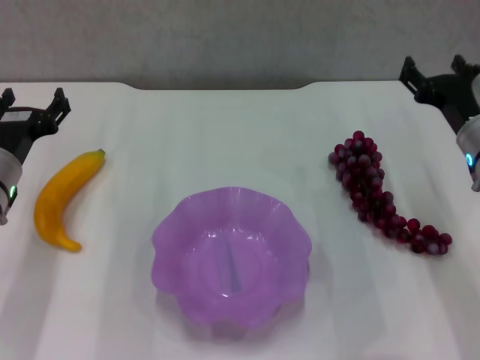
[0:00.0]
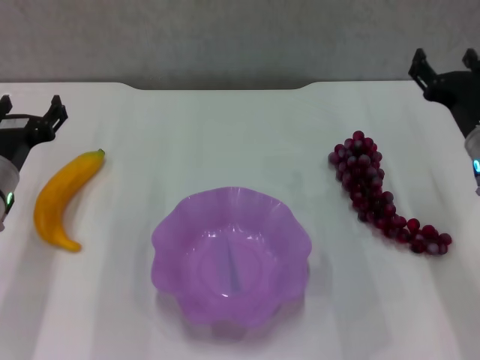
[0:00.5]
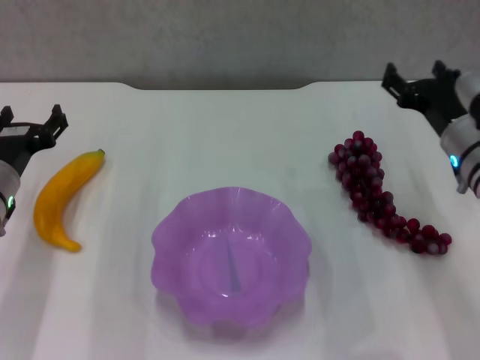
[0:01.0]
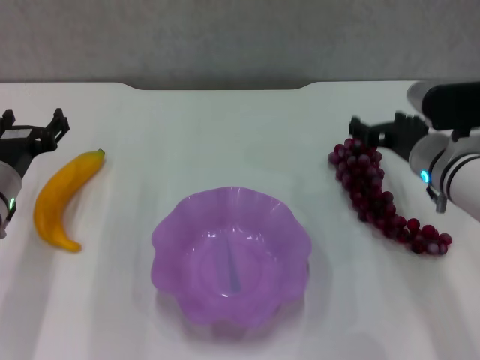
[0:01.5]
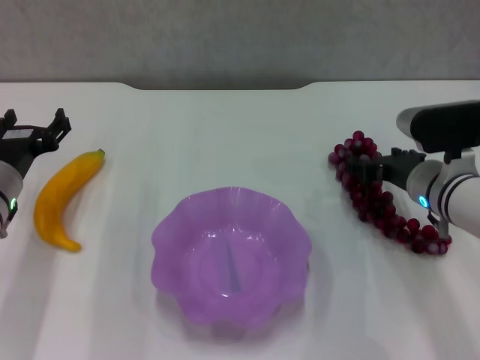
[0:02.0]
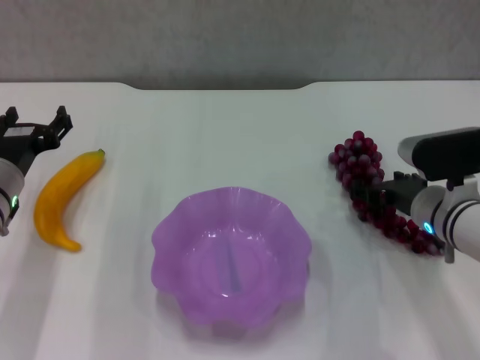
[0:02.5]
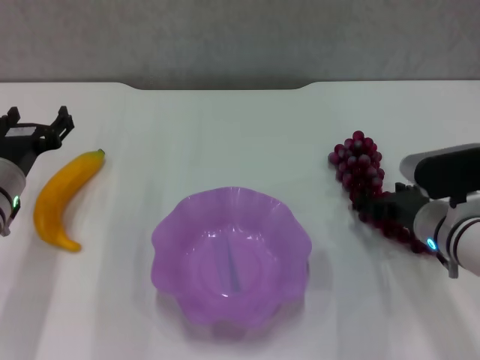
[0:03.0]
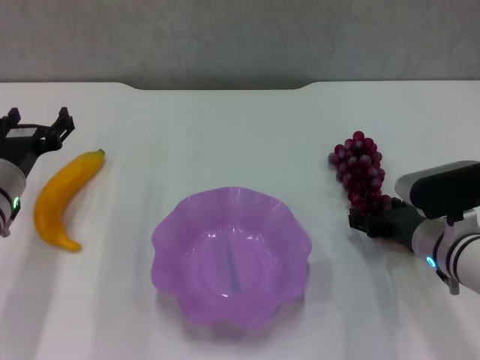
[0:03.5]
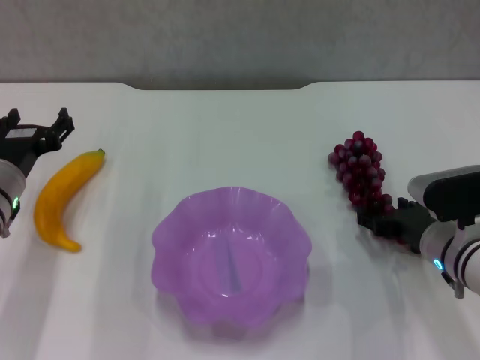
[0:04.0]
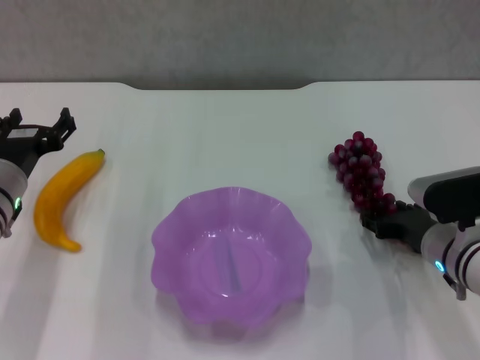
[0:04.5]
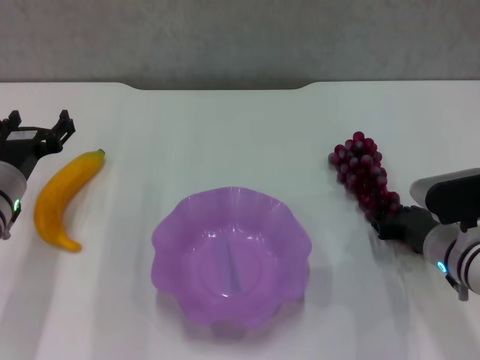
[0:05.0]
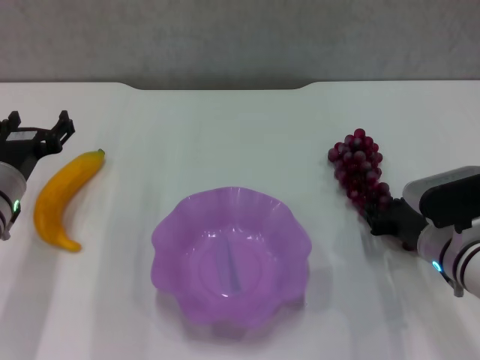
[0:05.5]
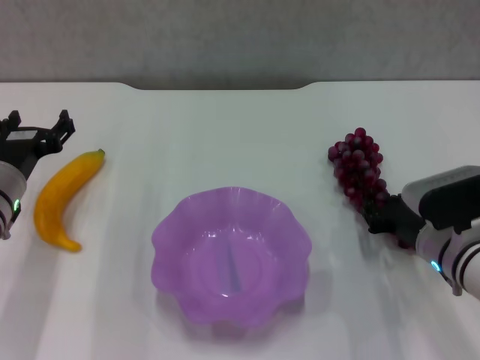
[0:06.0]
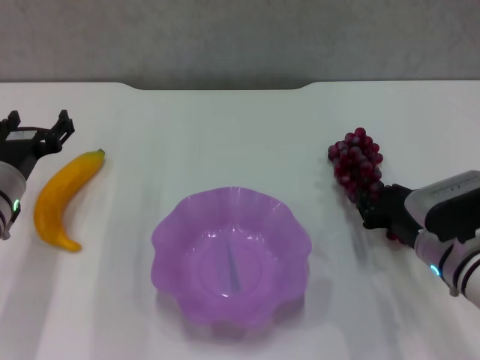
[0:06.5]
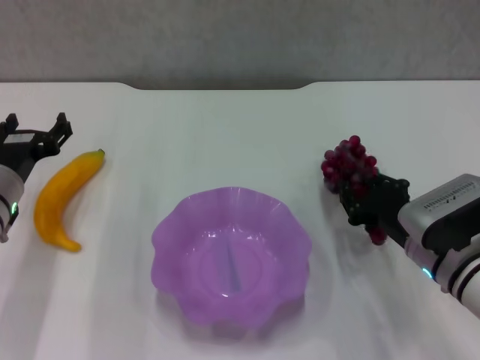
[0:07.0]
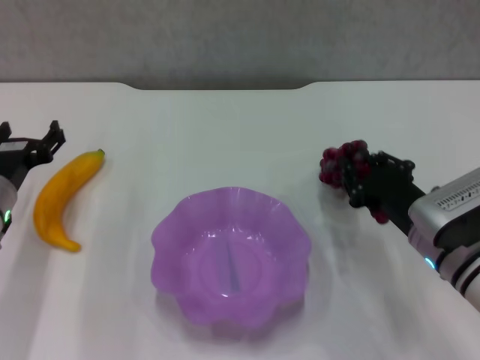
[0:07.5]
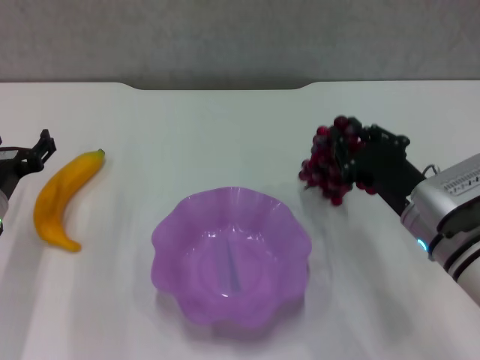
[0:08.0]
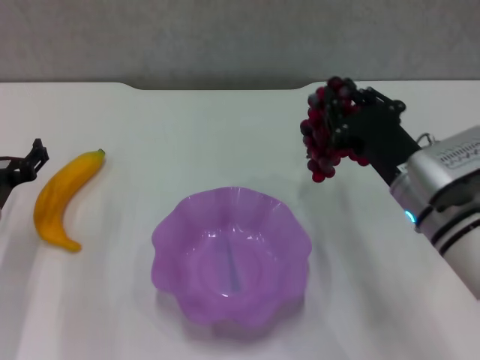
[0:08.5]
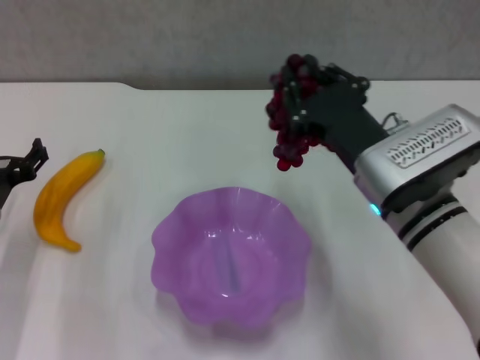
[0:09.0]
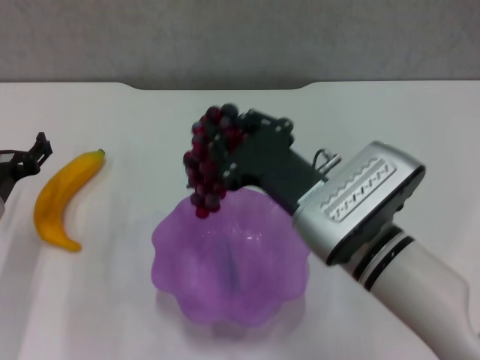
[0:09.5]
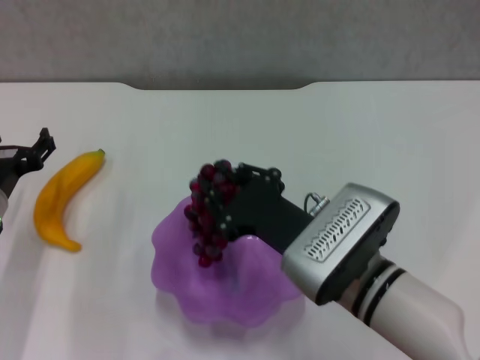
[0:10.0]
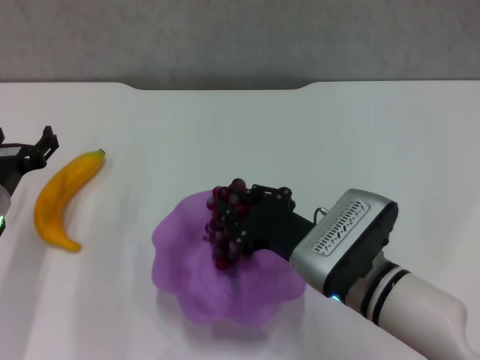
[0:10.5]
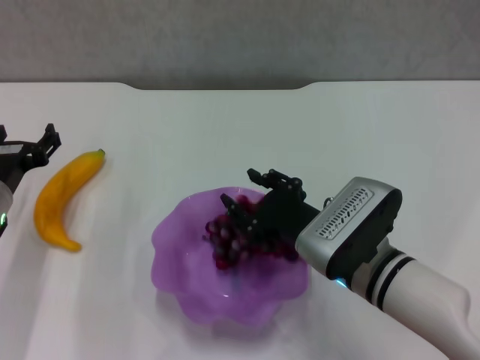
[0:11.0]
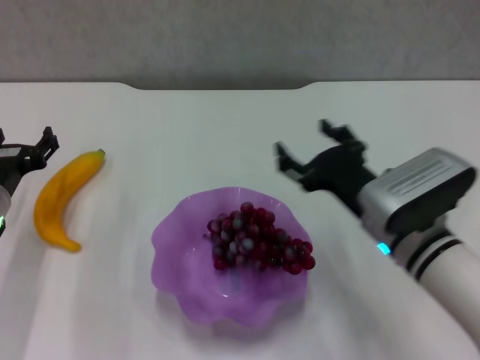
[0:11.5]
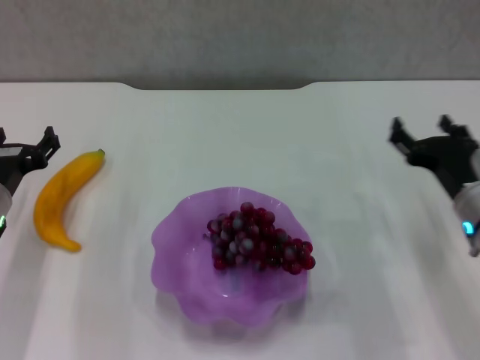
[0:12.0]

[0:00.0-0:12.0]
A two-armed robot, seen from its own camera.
Step, 0:00.0 to 0:05.0: Grasp the grape with right gripper.
Step, 0:05.5 to 0:10.5: Place the grape in the purple plate with right gripper.
0:00.0 to 0:02.0: The right gripper shifts by about 5 cm.
0:02.0 to 0:04.0: The right gripper goes approximately 5 cm backward.
0:04.0 to 0:06.0: The right gripper closes its fingers.
0:06.0 to 0:08.0: The right gripper shifts by some 5 cm.
0:08.0 to 0:10.0: The right gripper is displaced to the left by approximately 10 cm.
0:10.0 to 0:12.0: The right gripper travels to the right by about 15 cm, and opens up.

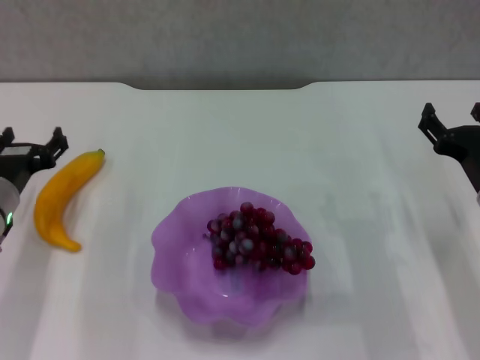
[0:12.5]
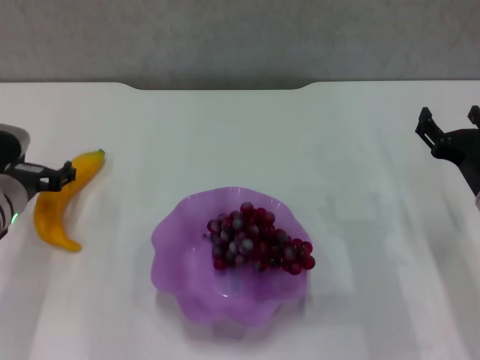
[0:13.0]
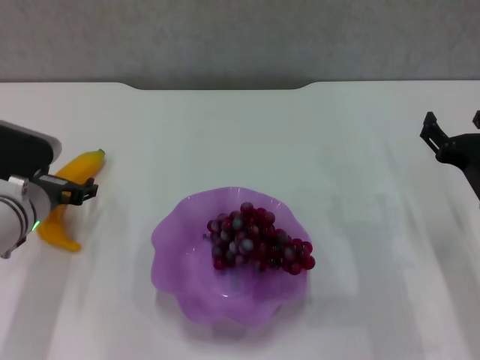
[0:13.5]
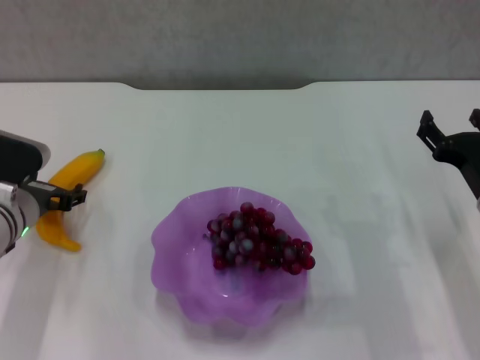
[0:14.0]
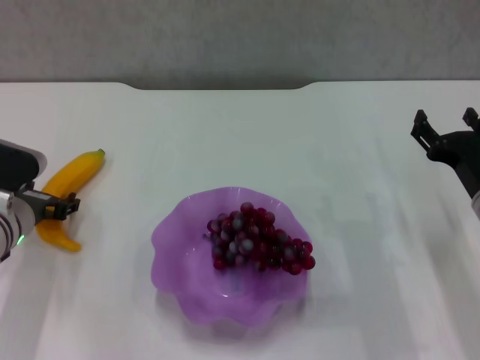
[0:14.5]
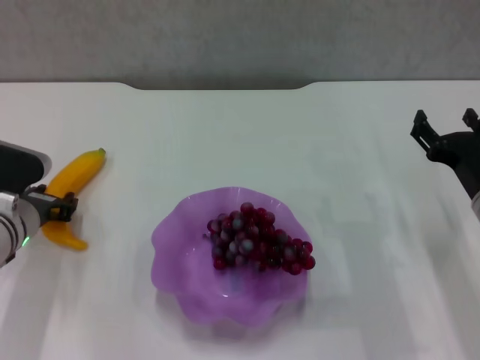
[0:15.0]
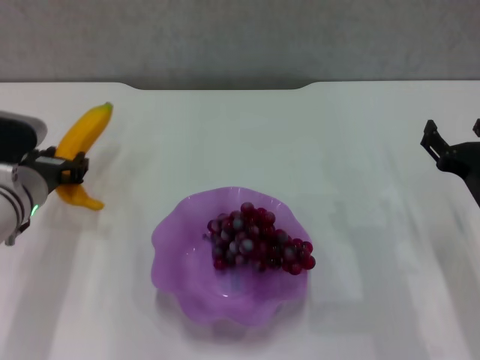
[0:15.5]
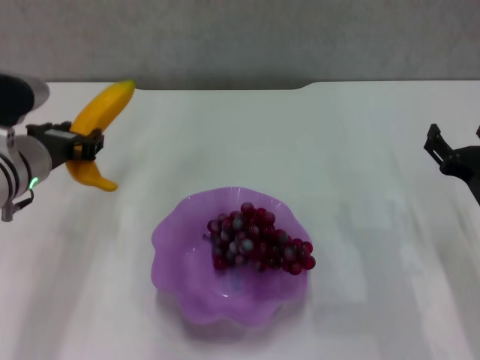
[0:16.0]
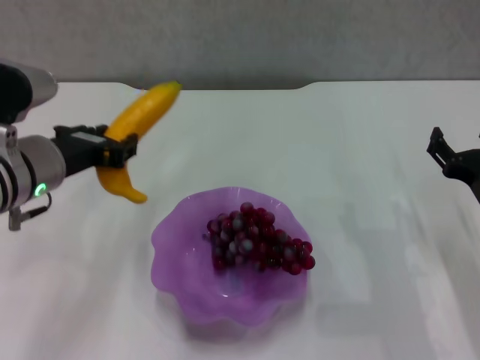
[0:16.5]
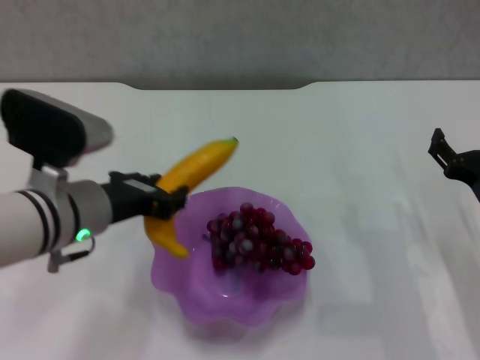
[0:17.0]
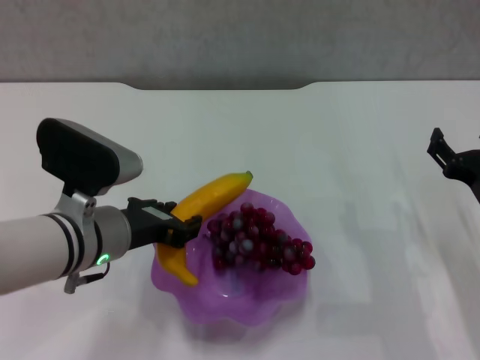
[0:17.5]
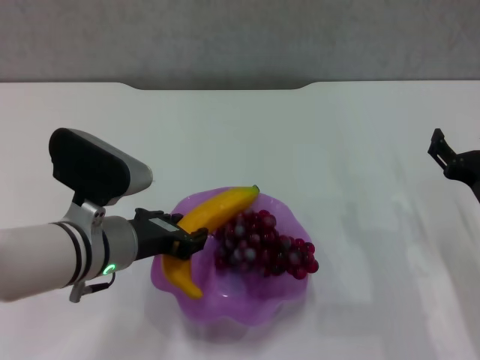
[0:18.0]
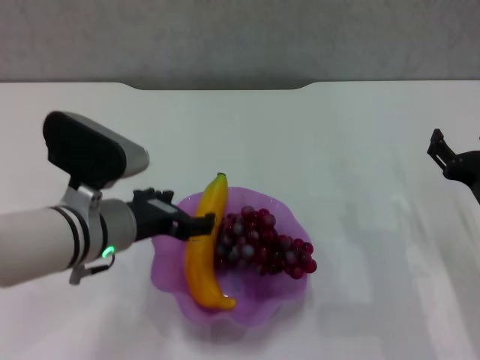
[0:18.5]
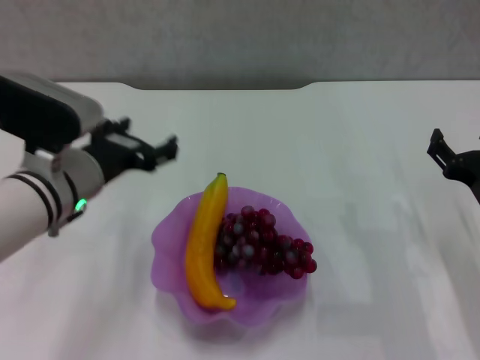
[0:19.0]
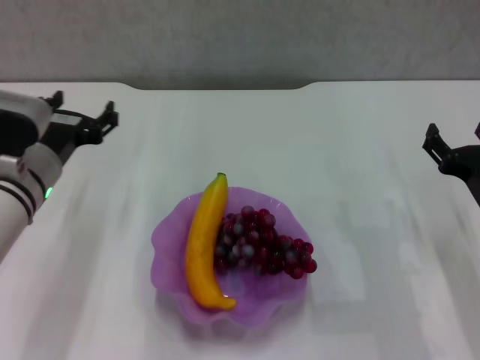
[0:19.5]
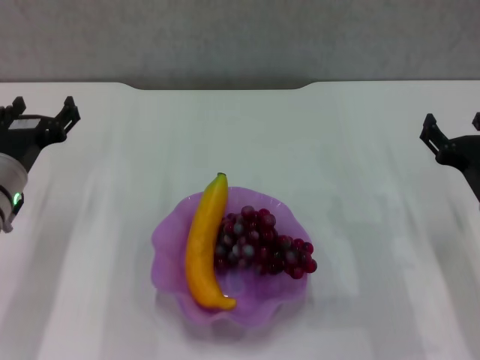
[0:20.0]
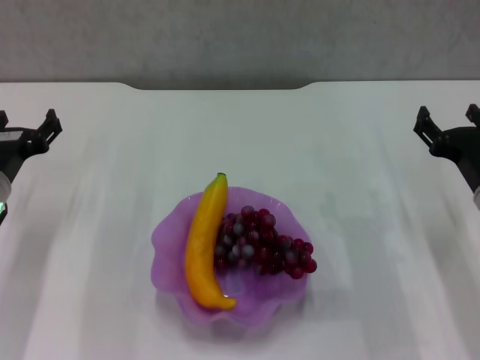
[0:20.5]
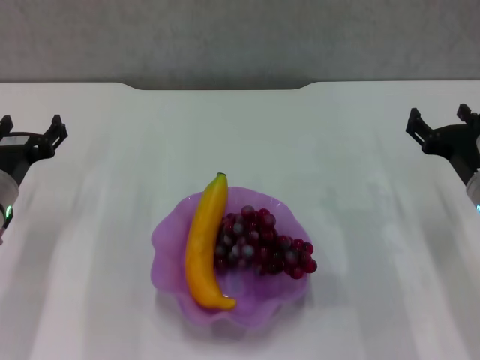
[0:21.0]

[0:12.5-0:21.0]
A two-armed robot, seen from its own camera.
Step, 0:12.5 to 0:14.5: Grasp the banana with left gripper.
Step, 0:15.0 to 0:18.0: Place the banana in the purple plate with left gripper.
0:14.5 to 0:16.5: The left gripper travels upward and to the right by roughly 15 cm, and closes up.
0:16.5 to 0:19.0: The left gripper opens its fingers.
0:19.0 to 0:21.0: The left gripper heads to the left and downward, covering roughly 10 cm.
